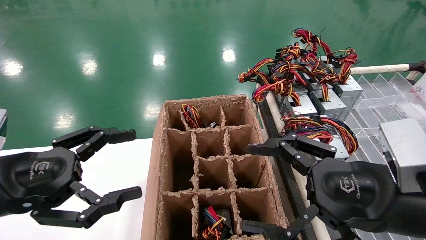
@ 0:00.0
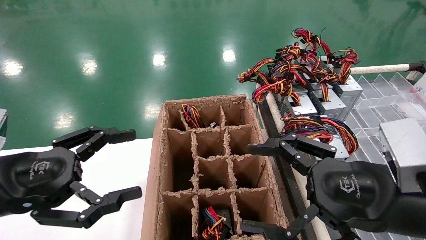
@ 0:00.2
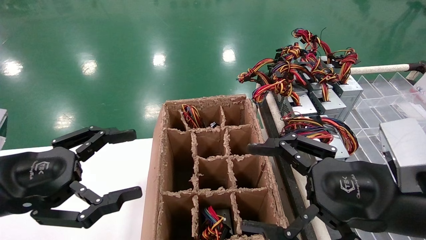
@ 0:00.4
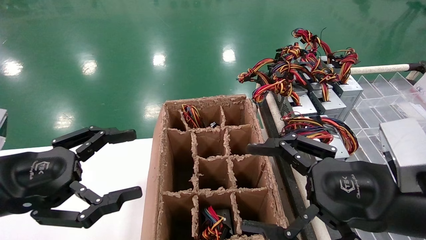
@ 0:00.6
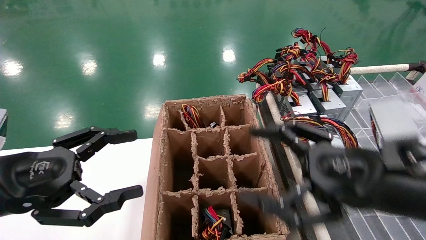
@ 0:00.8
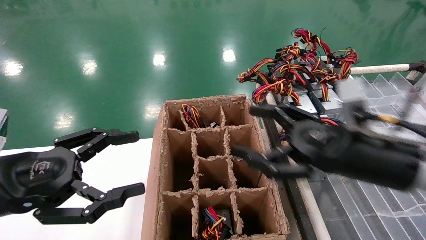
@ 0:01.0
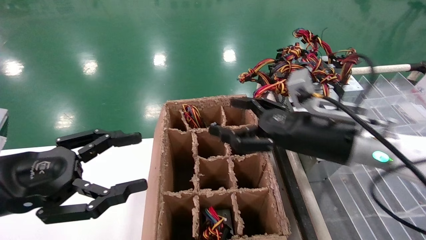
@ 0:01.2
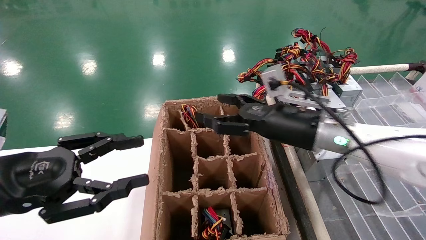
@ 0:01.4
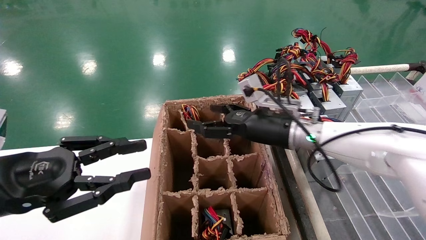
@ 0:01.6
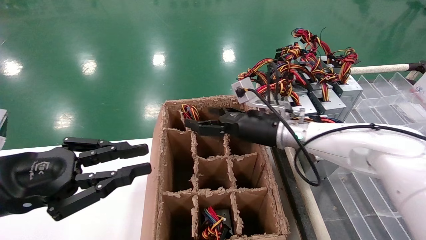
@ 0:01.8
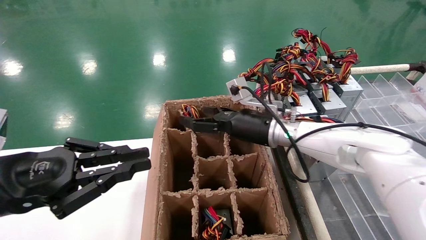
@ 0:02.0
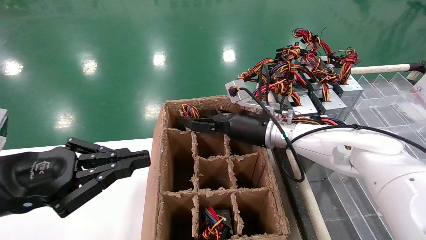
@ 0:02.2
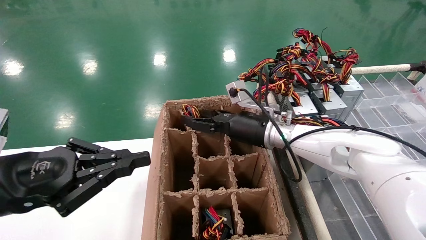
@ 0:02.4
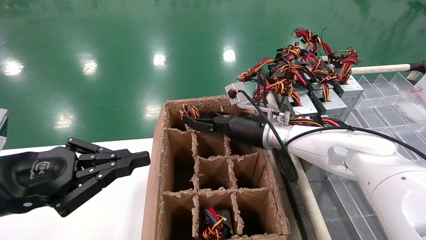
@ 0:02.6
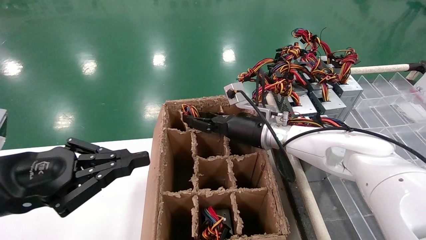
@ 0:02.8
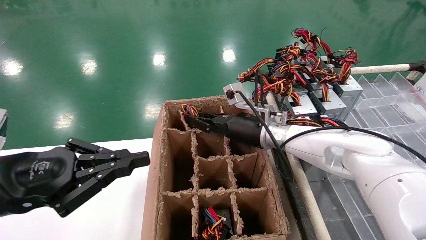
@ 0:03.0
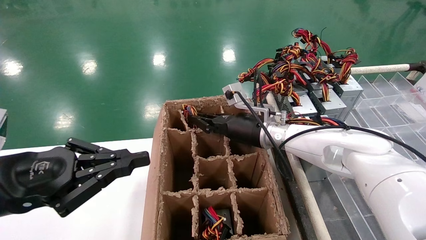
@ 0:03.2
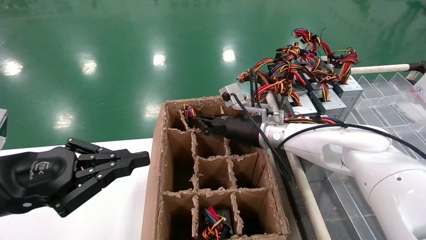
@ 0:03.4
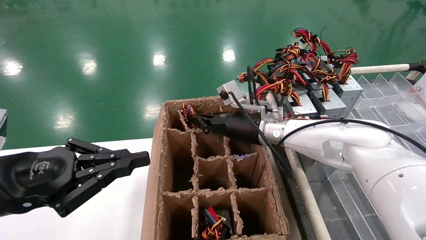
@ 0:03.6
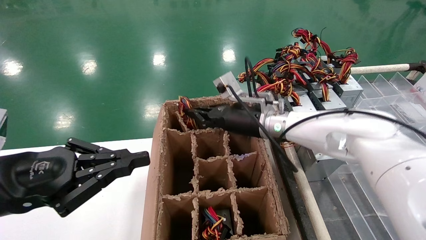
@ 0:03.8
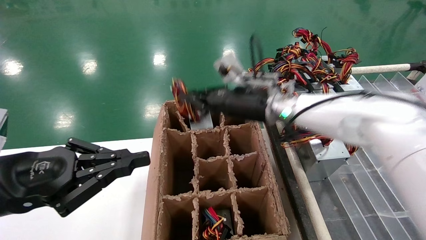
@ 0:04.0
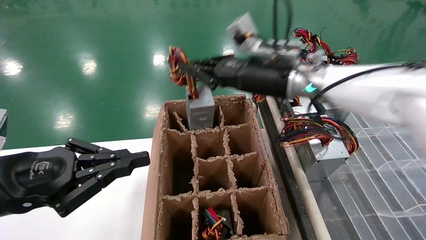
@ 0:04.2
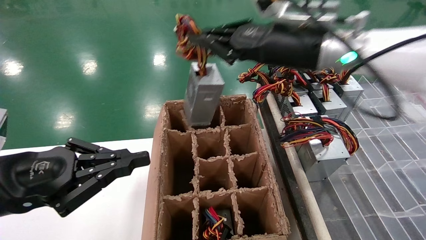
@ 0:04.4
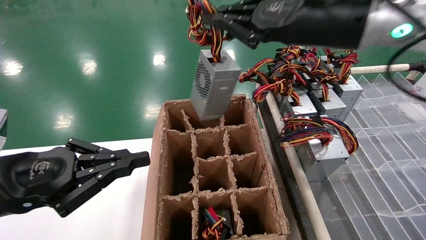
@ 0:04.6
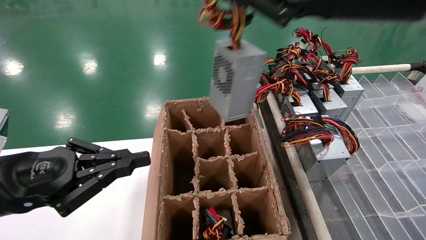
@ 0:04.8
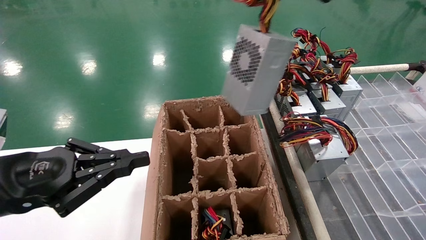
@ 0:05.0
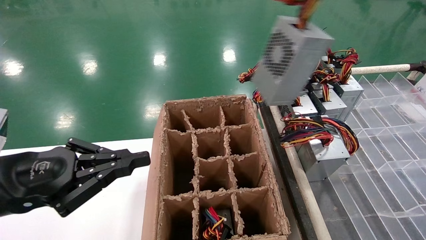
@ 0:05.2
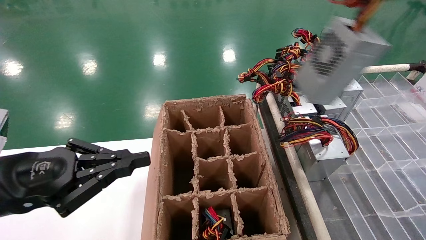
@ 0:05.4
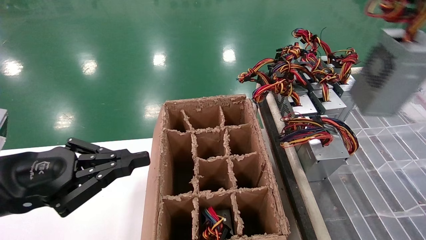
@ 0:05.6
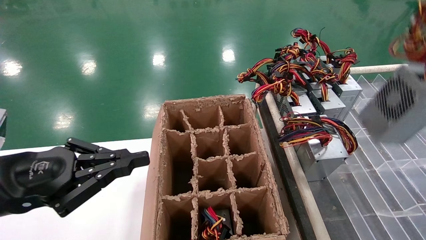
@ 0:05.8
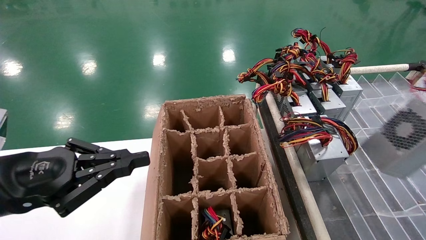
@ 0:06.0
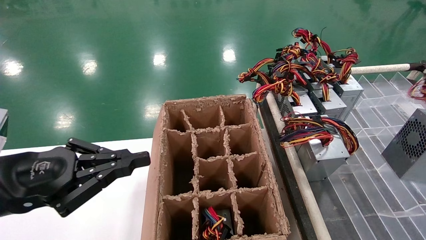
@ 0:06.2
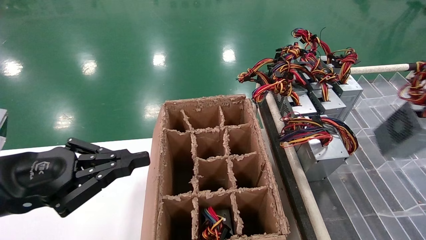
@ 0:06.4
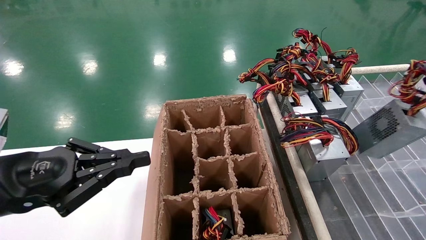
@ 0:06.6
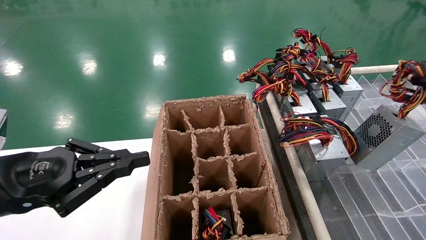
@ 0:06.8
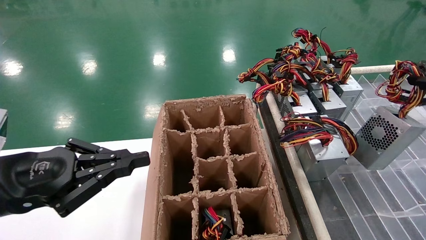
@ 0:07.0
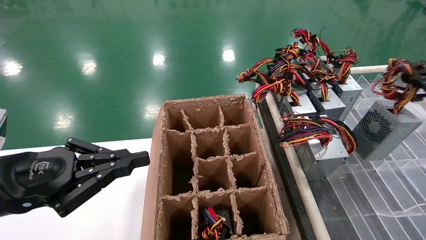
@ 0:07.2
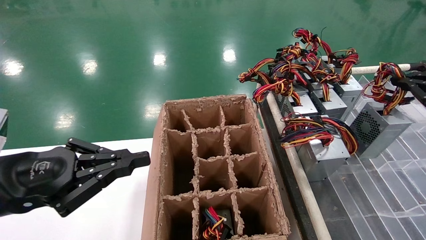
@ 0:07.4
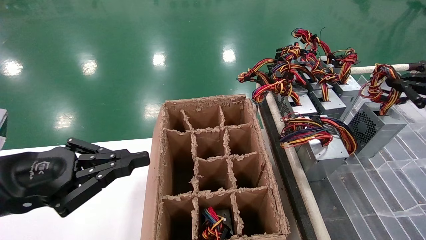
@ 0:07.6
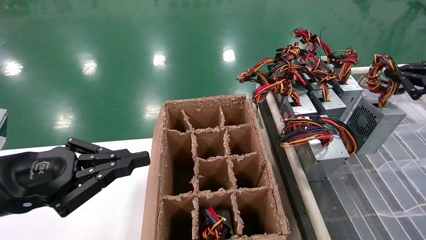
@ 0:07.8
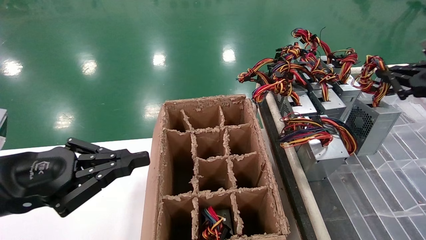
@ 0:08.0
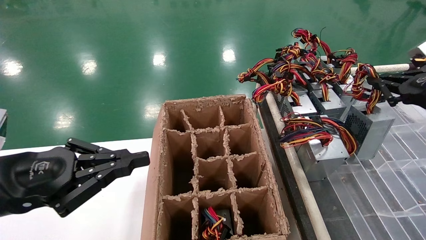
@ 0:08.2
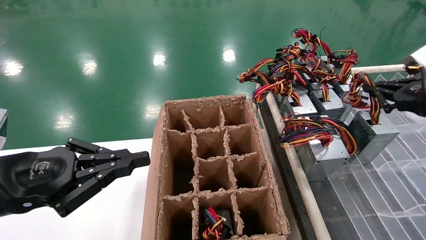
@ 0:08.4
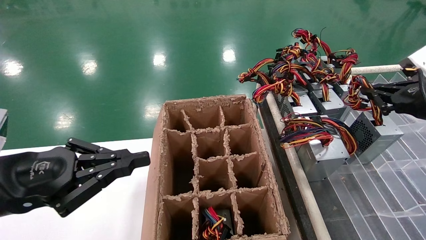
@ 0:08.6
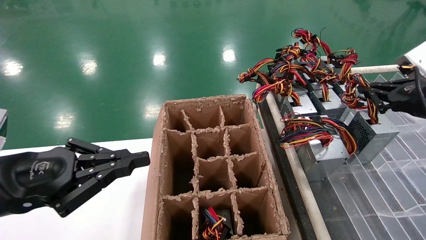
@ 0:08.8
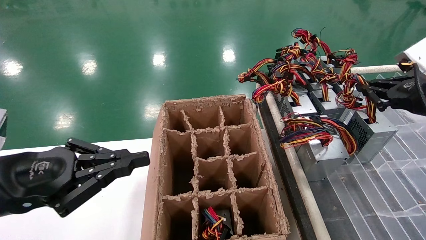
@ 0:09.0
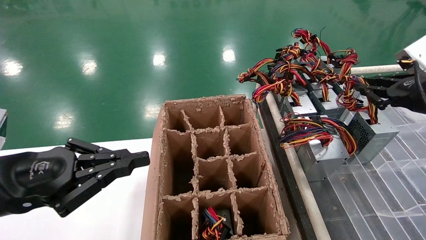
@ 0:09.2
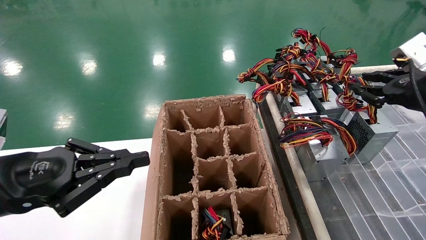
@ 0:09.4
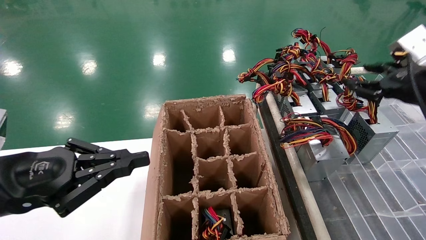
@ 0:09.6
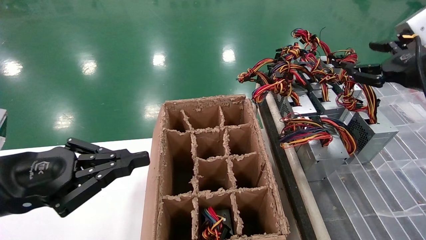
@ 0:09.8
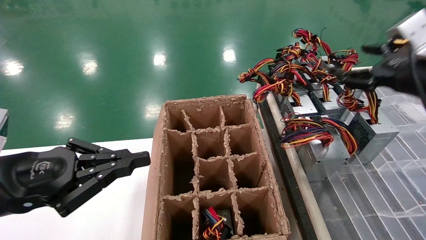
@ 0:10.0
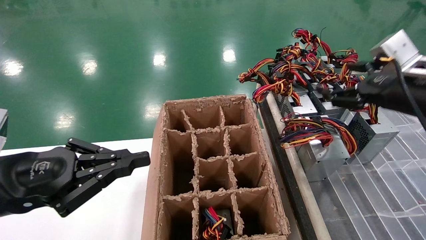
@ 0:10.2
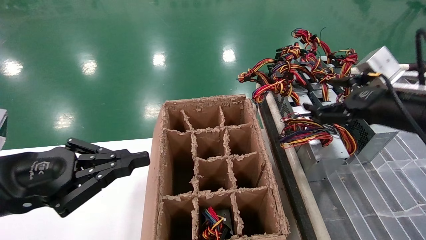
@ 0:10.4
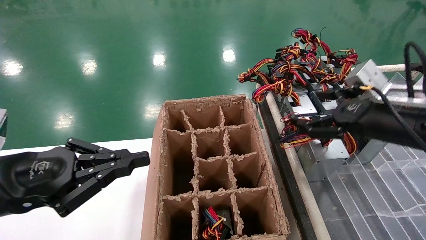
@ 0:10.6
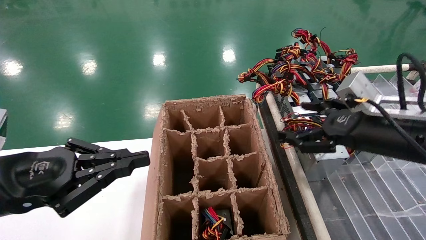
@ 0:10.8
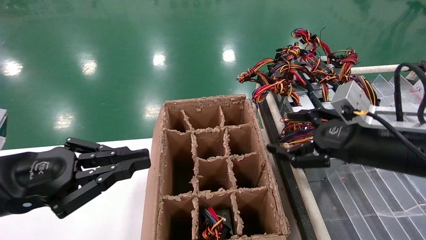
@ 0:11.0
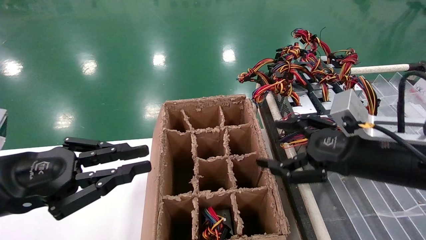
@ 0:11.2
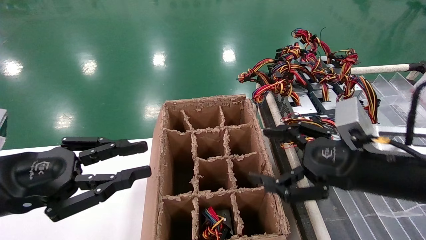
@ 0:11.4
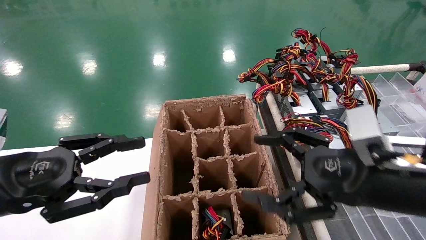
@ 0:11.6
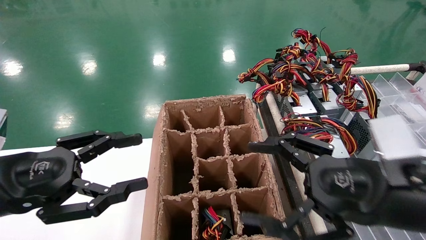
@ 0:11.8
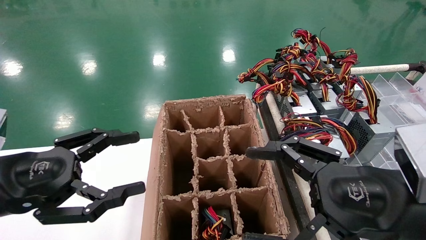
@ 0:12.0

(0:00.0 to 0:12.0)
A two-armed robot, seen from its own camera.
Step, 0:01.2 - 0:03.6: Grab the main unit power supply from the containment box.
Step, 0:03.8 - 0:09.6: Place the main unit power supply in the designated area.
0:00.0 - 0:01.6: The right gripper heads forward and to the left, covering some 25 cm. Meanwhile the left gripper closes.
0:01.6 - 0:03.0: The right gripper travels forward by about 5 cm, and closes its fingers. The left gripper closes.
0:03.0 - 0:04.4: The right gripper goes approximately 20 cm upward and backward, and closes its fingers.
0:04.4 - 0:06.0: The right gripper goes roughly 35 cm to the right and backward.
0:06.0 - 0:07.6: The right gripper travels forward and downward by about 10 cm.
0:07.6 - 0:09.0: The right gripper moves roughly 5 cm.
0:09.0 - 0:10.4: The right gripper goes some 5 cm to the left, and opens up.
0:10.4 - 0:12.0: The right gripper goes roughly 15 cm backward, to the left and downward. Meanwhile the left gripper opens up.

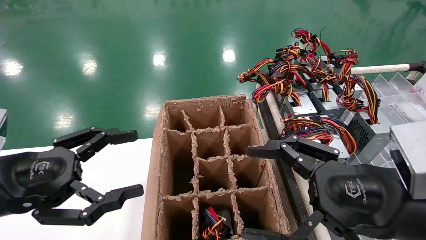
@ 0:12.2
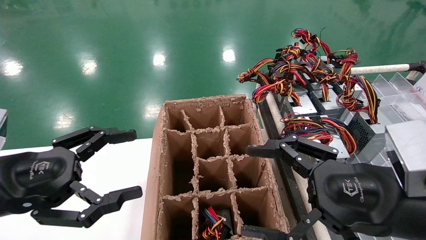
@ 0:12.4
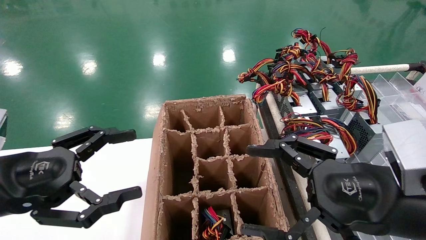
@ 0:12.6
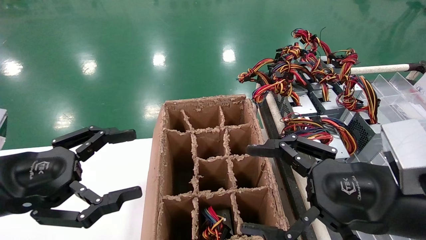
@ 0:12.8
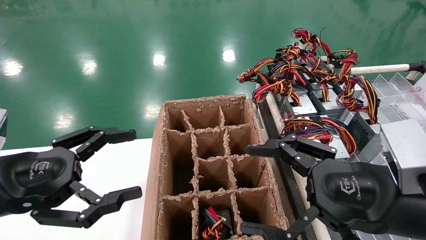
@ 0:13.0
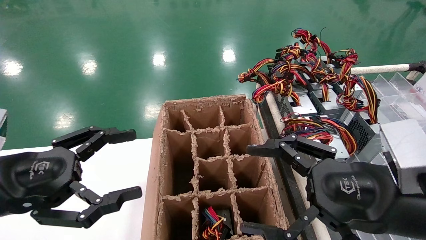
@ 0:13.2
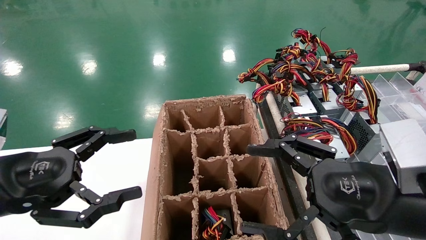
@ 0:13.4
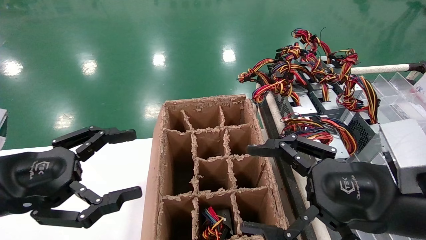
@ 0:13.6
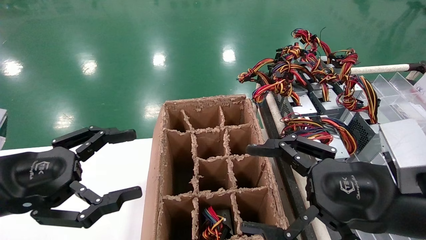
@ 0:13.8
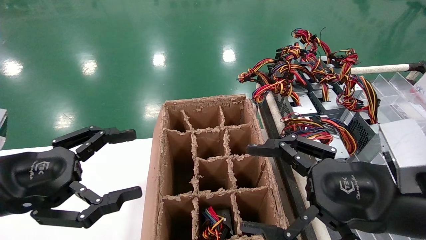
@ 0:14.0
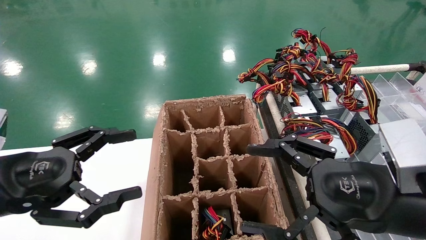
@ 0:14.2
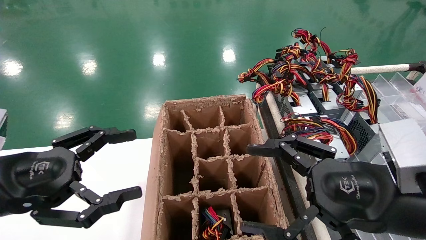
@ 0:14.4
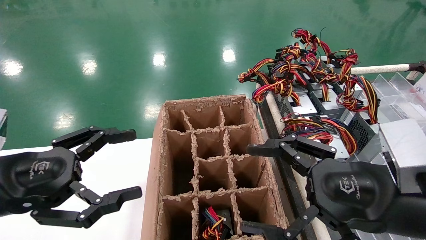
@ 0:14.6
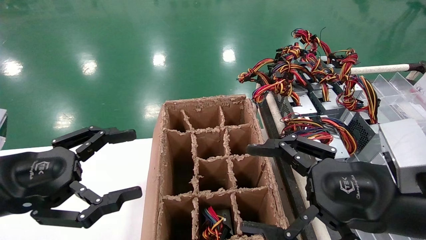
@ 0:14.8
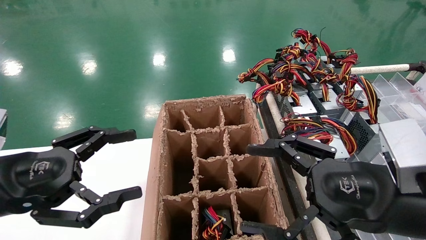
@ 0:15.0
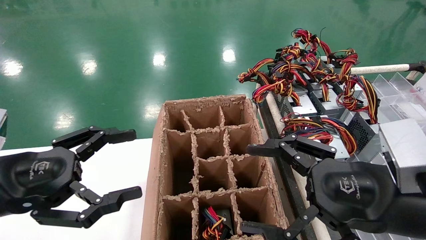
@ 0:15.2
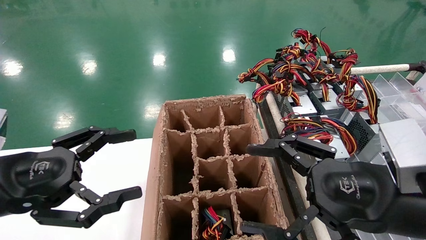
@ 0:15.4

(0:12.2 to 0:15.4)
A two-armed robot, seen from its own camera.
0:12.2 - 0:15.4: Neither gripper changes place.
